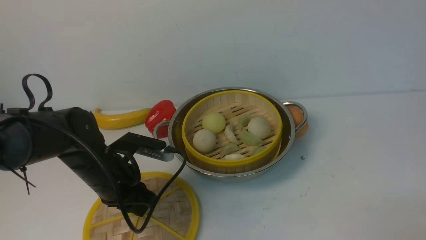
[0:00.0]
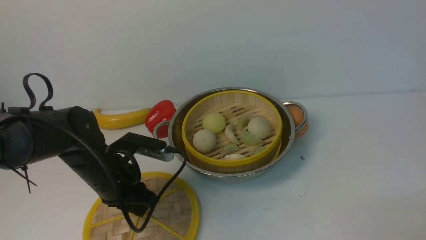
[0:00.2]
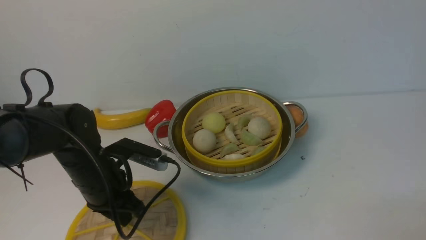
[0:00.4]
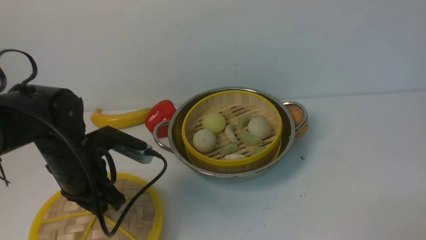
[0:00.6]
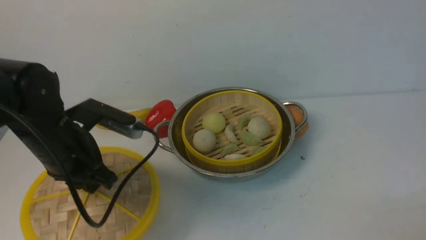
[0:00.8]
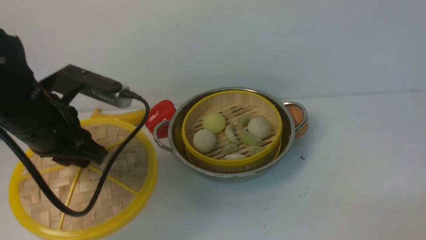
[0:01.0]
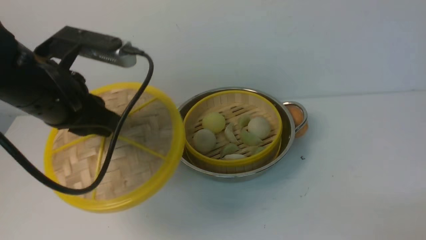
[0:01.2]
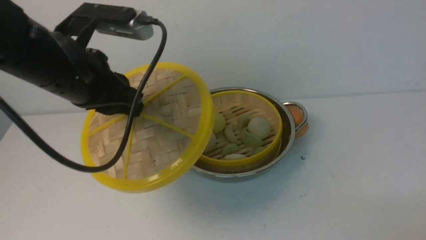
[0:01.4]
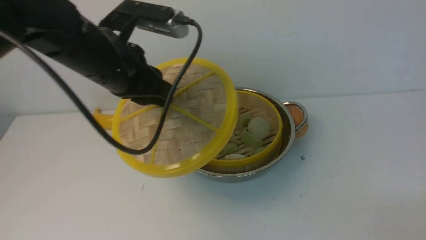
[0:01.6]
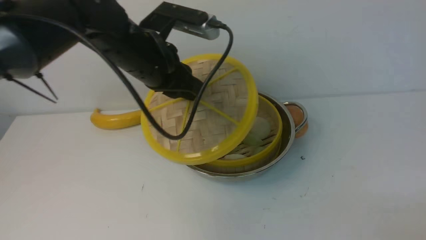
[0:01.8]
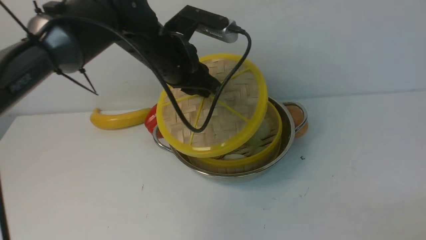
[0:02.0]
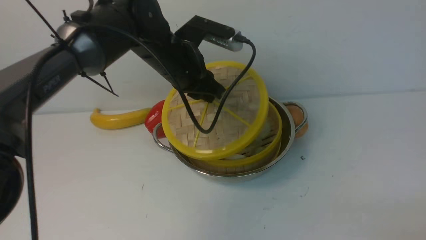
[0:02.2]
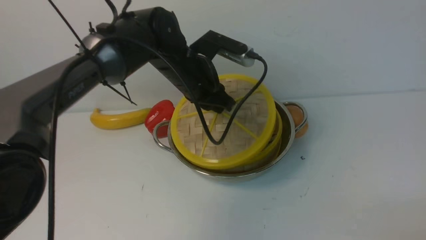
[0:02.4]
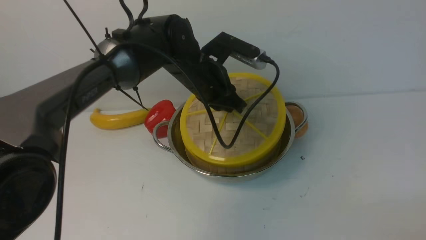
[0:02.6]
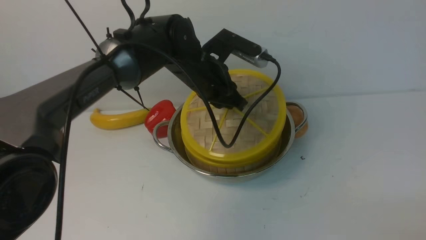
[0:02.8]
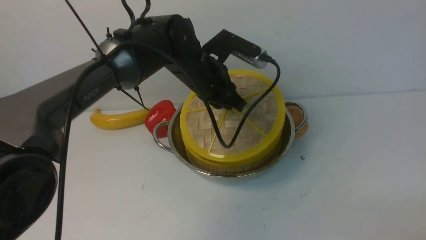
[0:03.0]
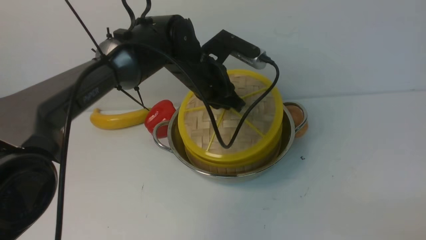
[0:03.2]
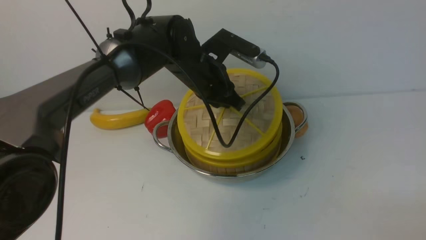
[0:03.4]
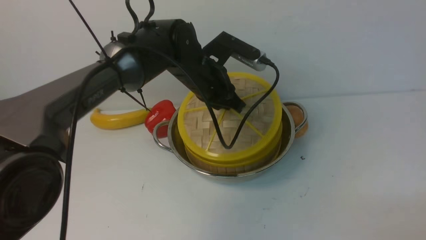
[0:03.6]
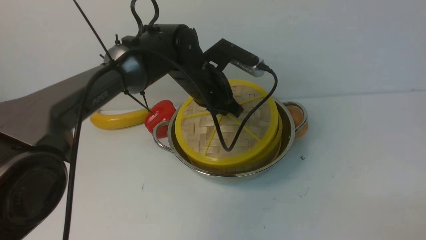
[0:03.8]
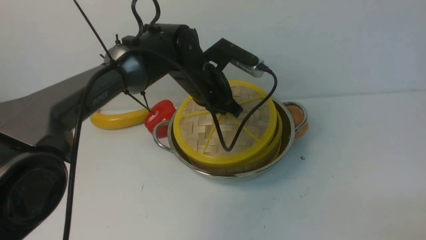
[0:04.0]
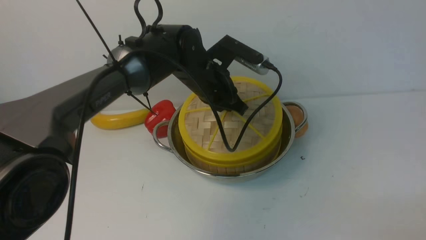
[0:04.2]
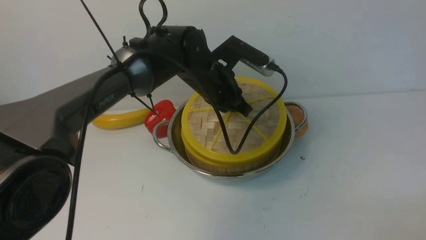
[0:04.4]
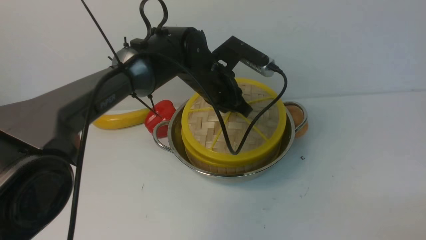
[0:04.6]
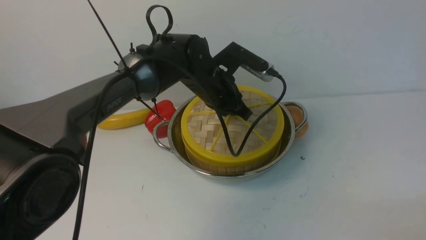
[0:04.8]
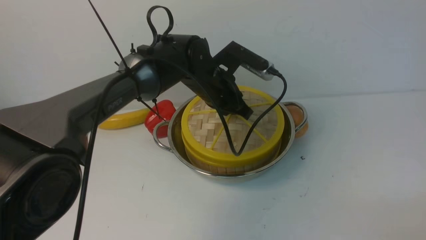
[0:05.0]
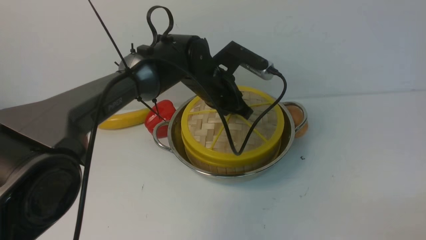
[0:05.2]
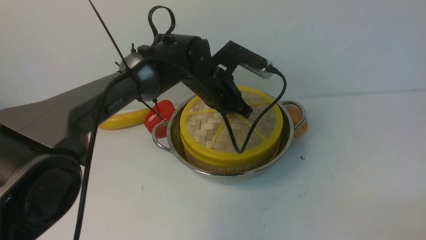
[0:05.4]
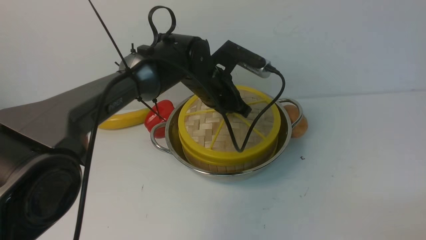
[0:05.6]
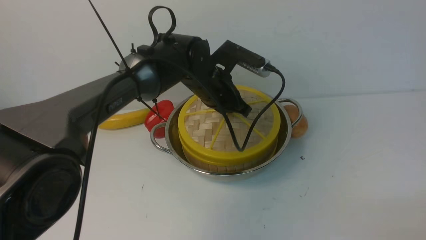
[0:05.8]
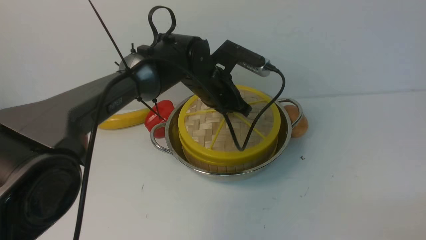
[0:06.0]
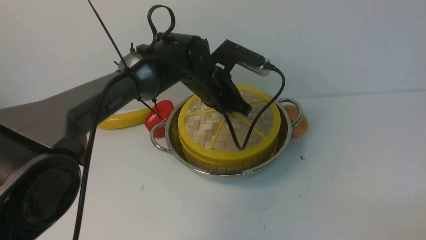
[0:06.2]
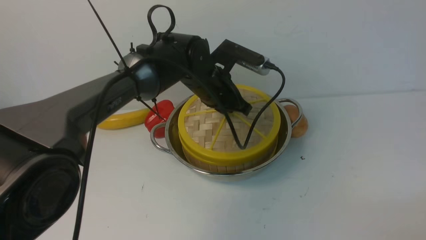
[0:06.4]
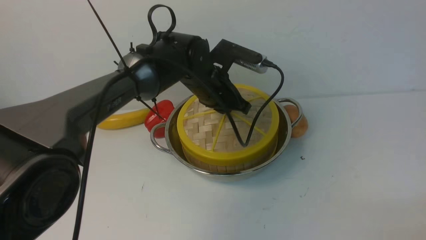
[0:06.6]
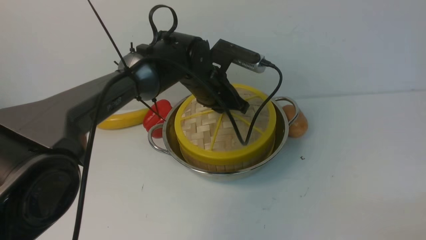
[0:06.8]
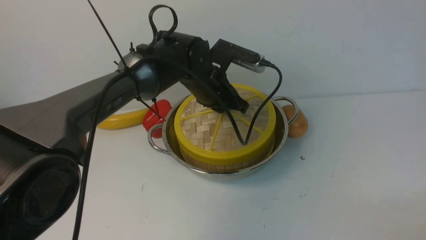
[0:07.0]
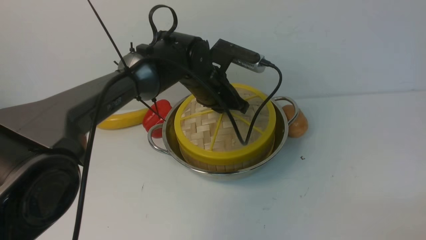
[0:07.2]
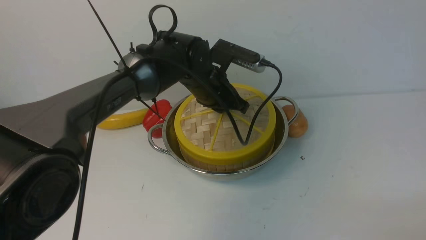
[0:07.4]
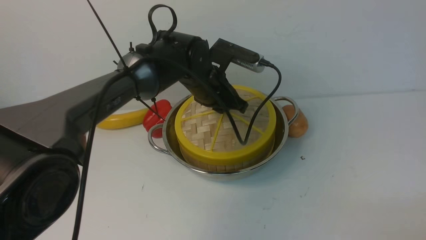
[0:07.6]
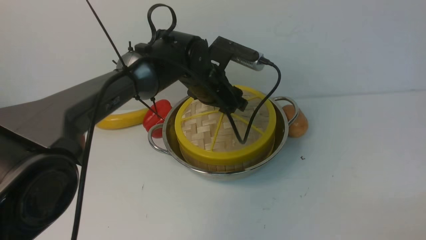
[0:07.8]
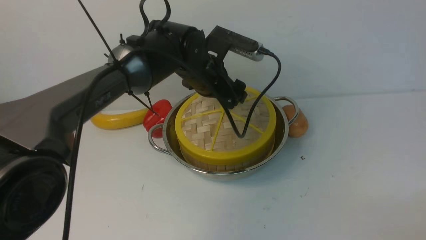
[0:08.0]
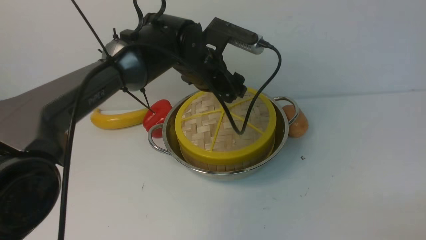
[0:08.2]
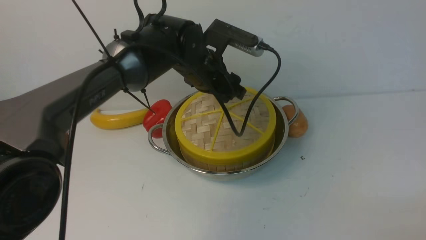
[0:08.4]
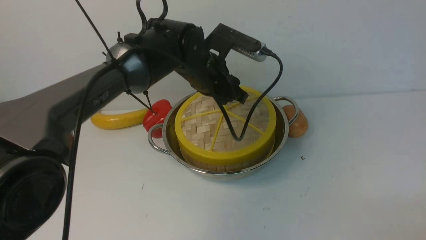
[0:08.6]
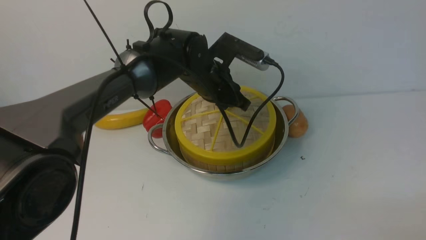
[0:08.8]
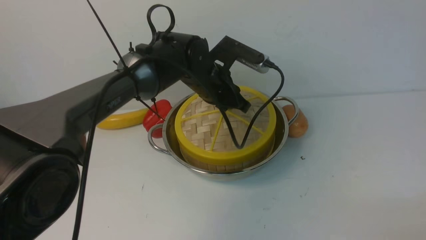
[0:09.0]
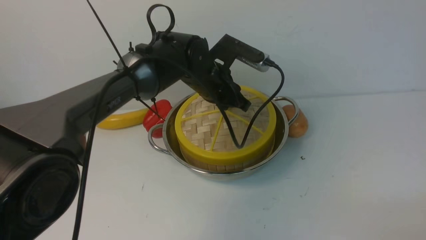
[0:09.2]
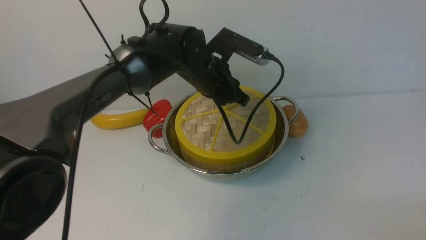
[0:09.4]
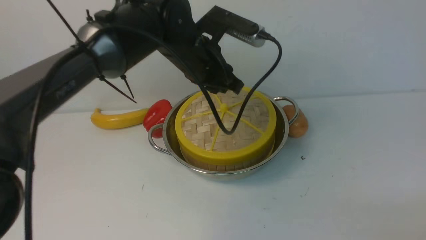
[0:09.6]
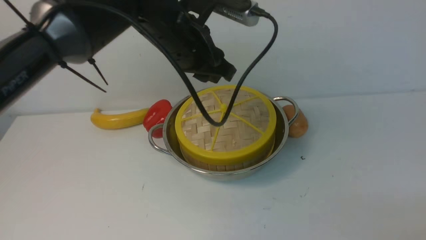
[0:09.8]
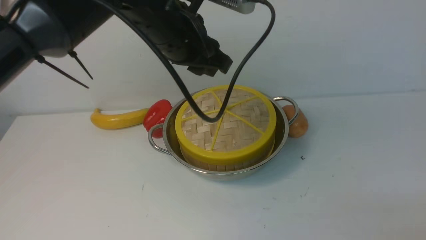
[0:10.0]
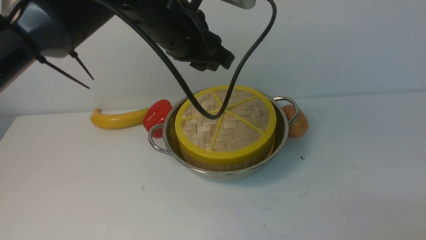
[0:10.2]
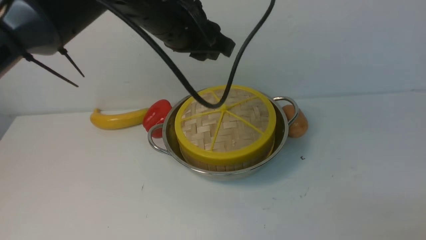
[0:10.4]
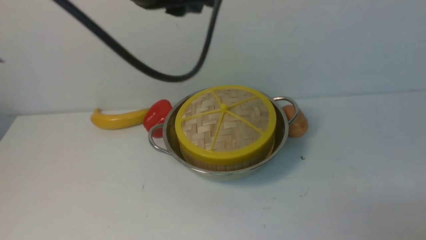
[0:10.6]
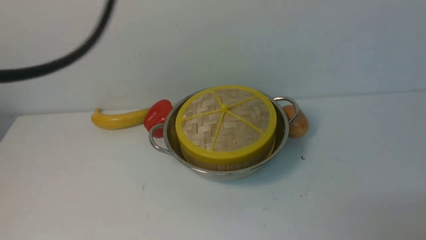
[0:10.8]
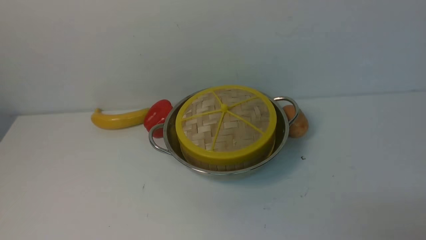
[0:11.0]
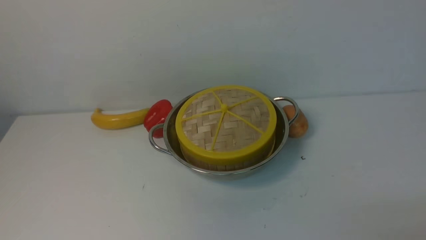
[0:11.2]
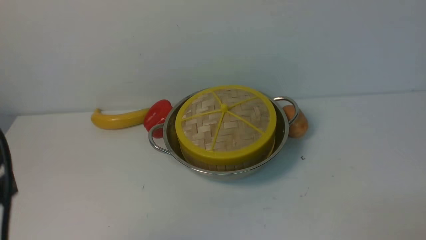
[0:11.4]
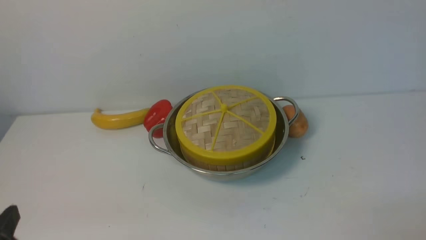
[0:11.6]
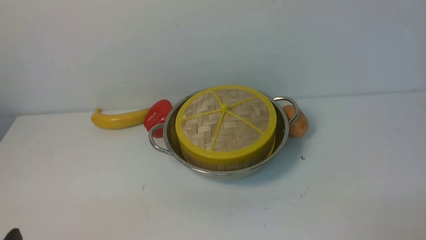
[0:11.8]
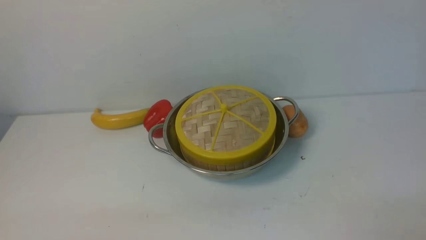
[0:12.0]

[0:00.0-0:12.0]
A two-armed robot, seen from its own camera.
Task of the whole recording: place the steamer in the pot on the white table, and put the lid on the steamer.
Step, 0:00.6 to 0:08.0: use the left arm to place the steamer lid on the steamer.
0:00.0 to 0:01.6: The left gripper is displaced upward by about 20 cm.
0:01.6 to 0:03.0: The left gripper travels to the right, forward and downward by approximately 15 cm.
0:03.0 to 0:06.0: There are only small adjustments of the grippers.
0:06.0 to 0:07.6: The left gripper opens its fingers.
0:07.6 to 0:09.0: The left gripper opens, then closes again.
0:09.0 to 0:10.4: The left gripper heads upward and backward, covering some 20 cm.
0:10.4 to 0:12.0: The left gripper heads backward, downward and to the left, covering roughly 40 cm.

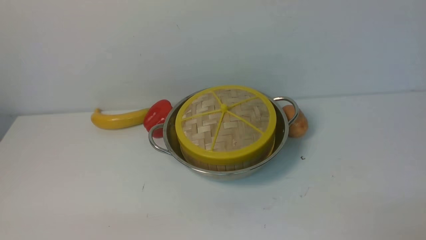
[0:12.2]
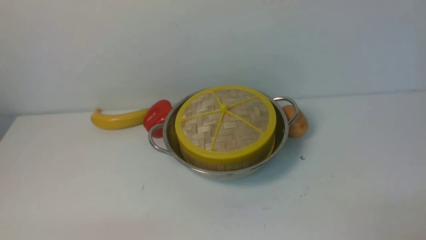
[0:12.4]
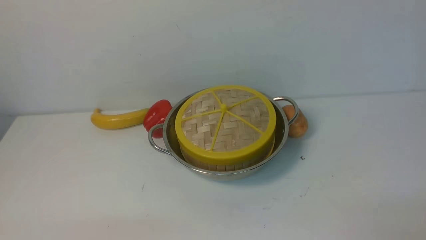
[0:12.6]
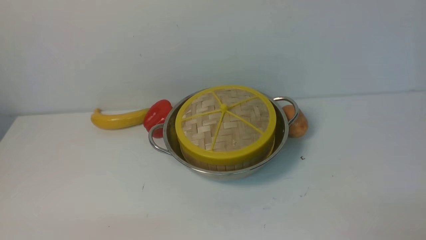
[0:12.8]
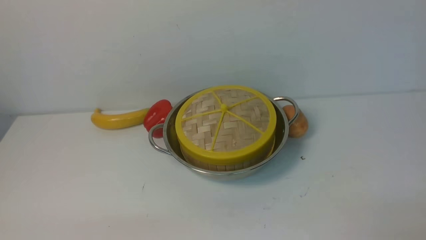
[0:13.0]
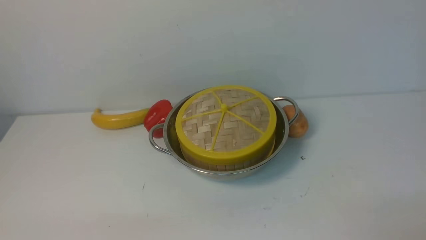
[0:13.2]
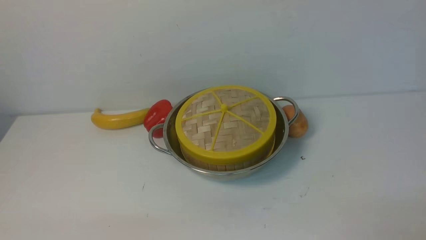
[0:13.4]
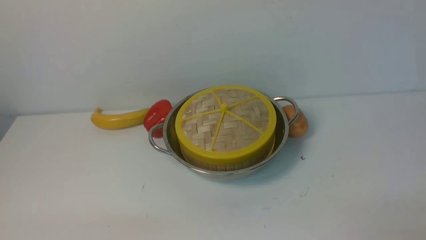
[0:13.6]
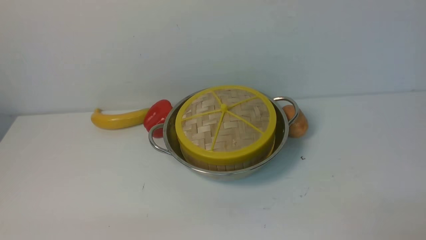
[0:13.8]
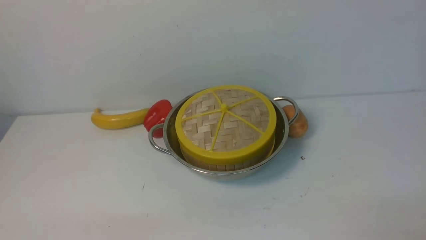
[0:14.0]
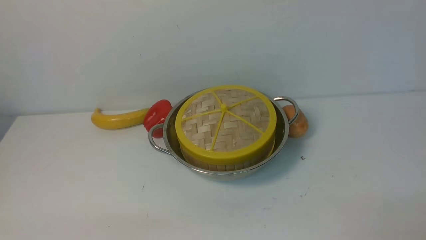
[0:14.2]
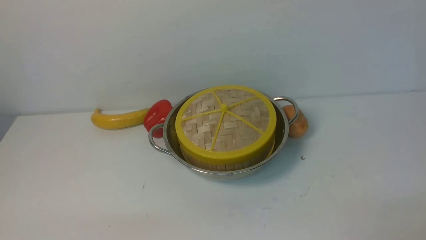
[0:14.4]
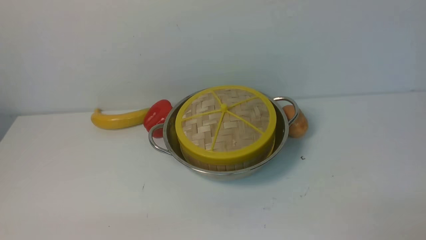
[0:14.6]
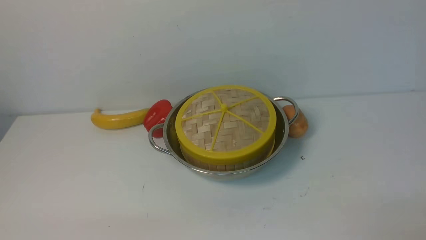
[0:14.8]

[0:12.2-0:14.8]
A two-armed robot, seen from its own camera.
Task of the whole recording: place the steamer in the pot on the white table, and put the lid on the steamer.
0:13.4 to 0:14.8: The two grippers keep their place.

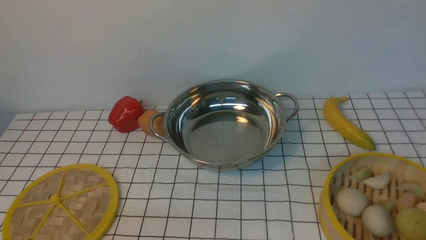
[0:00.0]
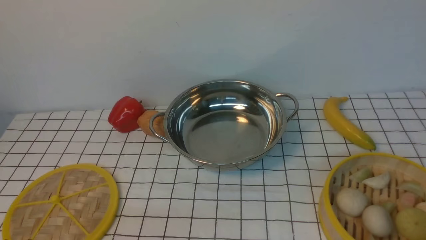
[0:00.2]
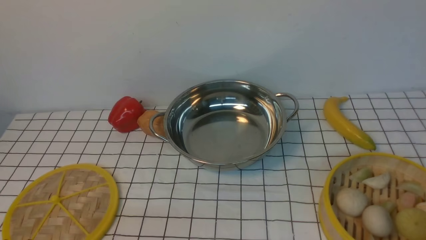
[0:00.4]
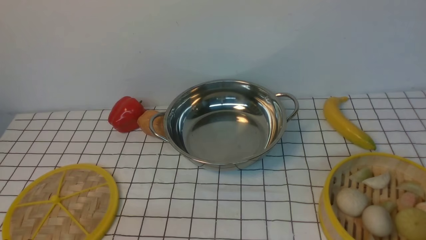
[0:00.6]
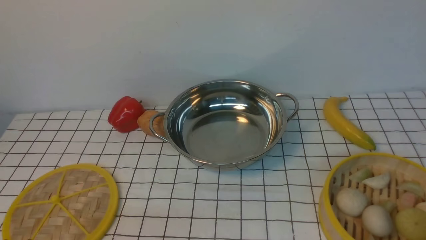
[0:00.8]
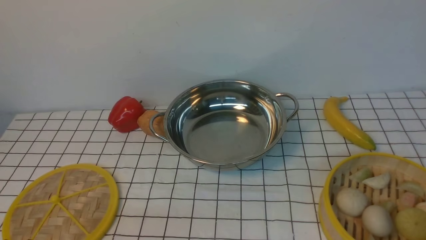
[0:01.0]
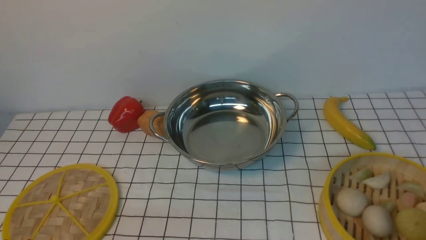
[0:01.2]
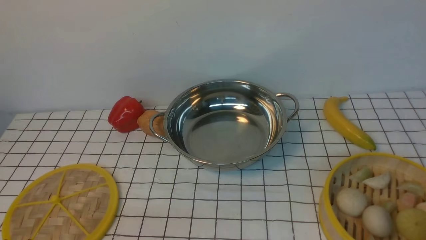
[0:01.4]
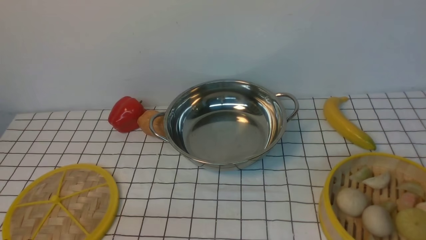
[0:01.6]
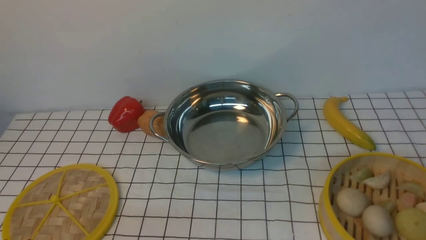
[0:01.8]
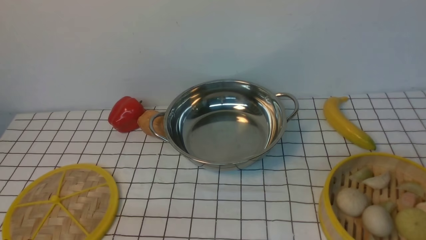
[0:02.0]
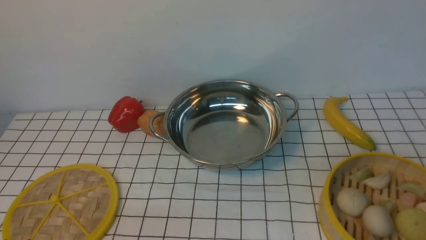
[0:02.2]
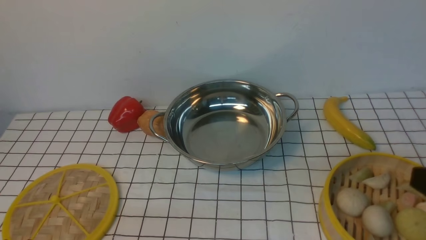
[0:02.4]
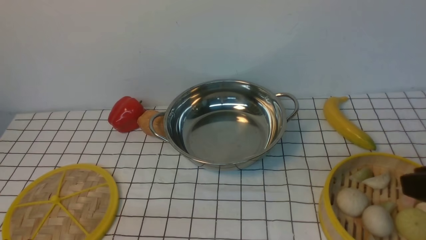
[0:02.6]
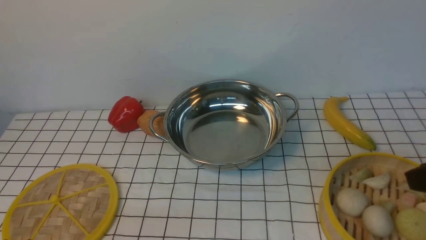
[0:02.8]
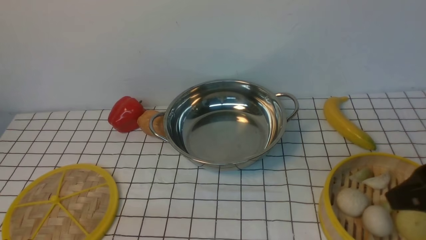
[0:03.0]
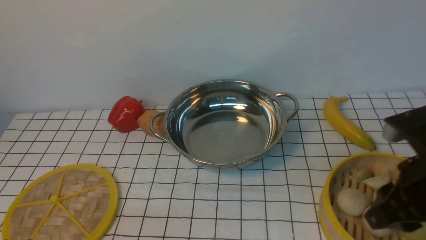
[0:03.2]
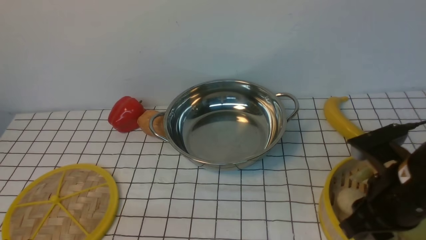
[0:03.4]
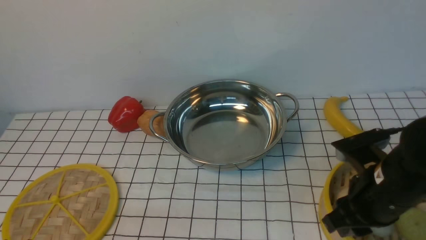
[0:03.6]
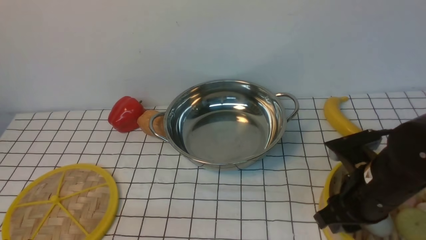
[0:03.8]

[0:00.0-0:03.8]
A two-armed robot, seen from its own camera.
Task of the whole recording: place the steamer in the pot on the white tablecloth, and put the lid on the steamer.
0:01.2 to 0:02.6: The right gripper moves upward and forward, approximately 15 cm.
0:02.6 to 0:03.8: The right gripper shifts roughly 20 cm downward, forward and to the left.
